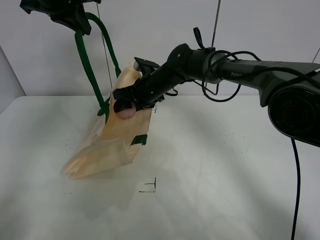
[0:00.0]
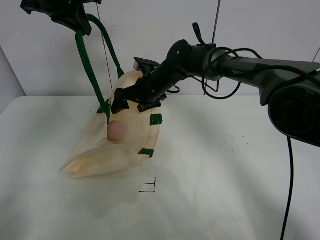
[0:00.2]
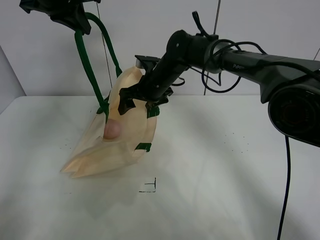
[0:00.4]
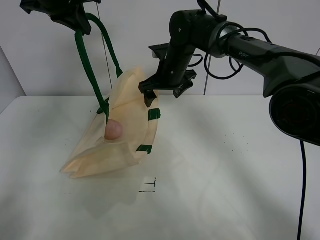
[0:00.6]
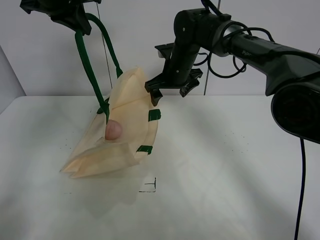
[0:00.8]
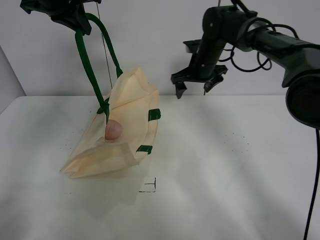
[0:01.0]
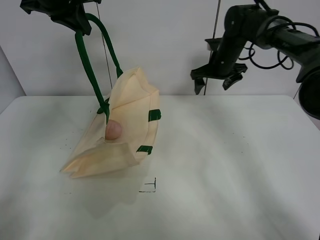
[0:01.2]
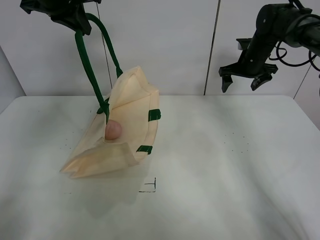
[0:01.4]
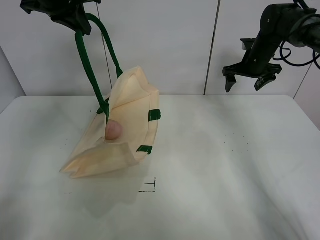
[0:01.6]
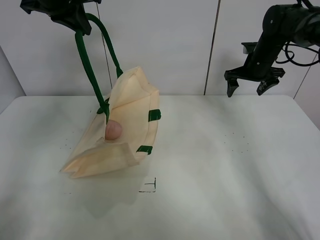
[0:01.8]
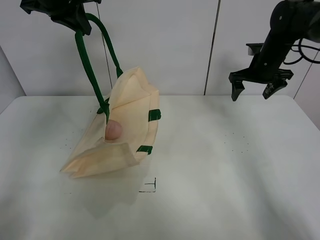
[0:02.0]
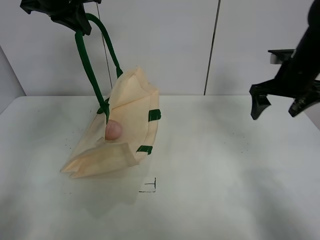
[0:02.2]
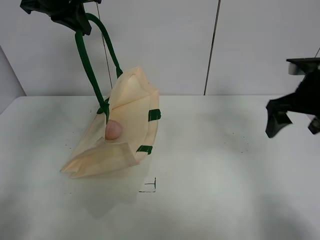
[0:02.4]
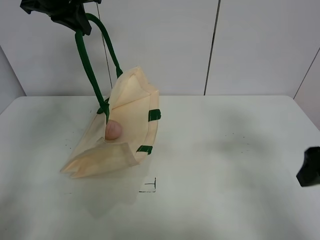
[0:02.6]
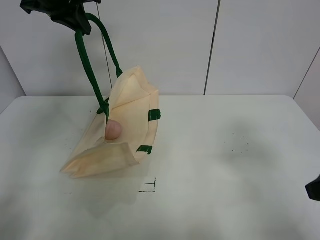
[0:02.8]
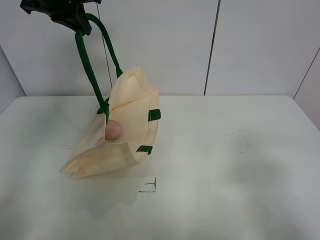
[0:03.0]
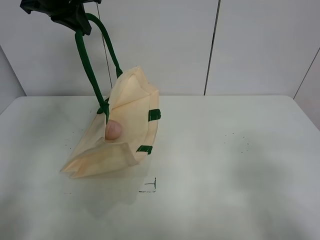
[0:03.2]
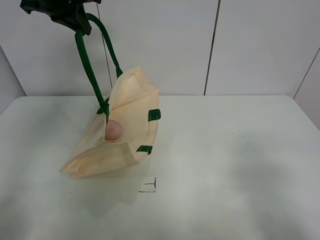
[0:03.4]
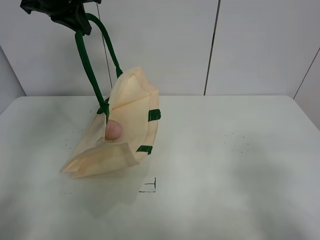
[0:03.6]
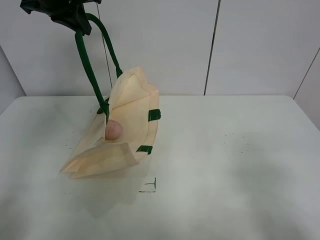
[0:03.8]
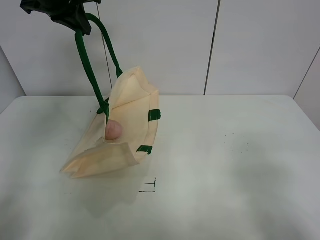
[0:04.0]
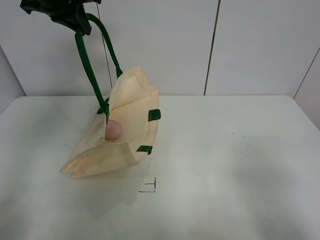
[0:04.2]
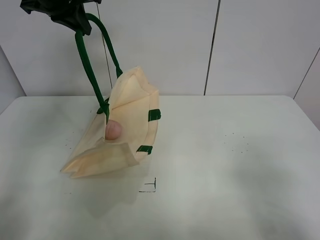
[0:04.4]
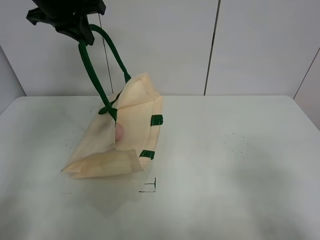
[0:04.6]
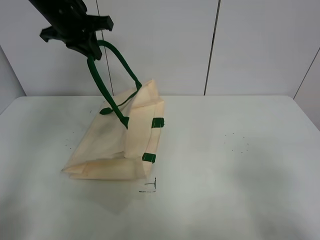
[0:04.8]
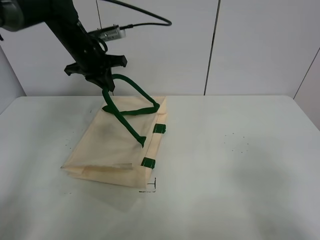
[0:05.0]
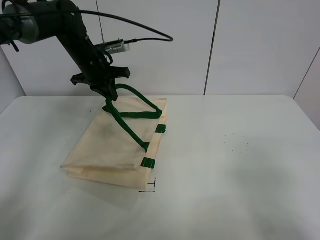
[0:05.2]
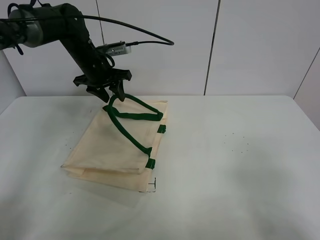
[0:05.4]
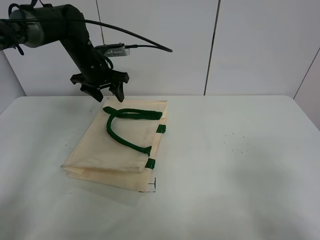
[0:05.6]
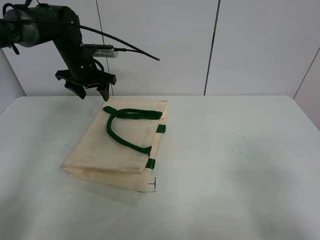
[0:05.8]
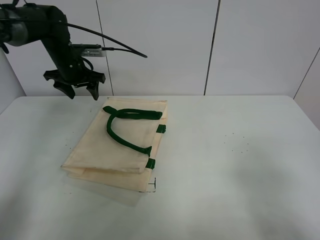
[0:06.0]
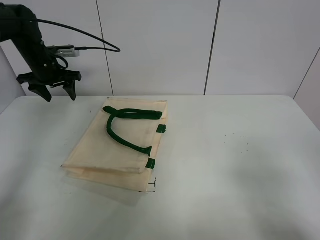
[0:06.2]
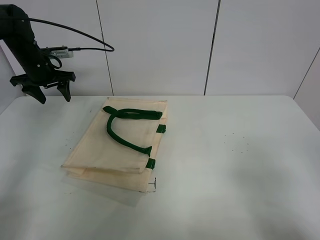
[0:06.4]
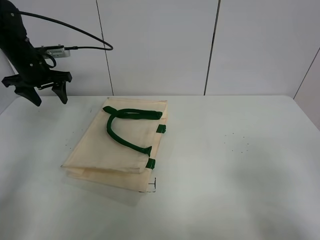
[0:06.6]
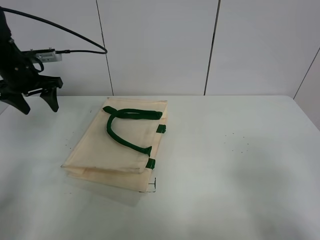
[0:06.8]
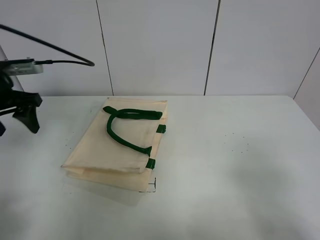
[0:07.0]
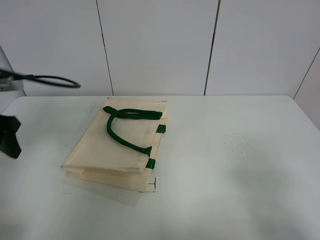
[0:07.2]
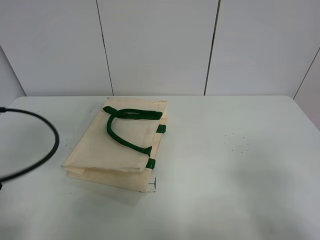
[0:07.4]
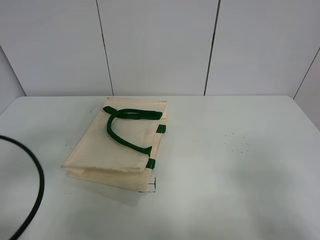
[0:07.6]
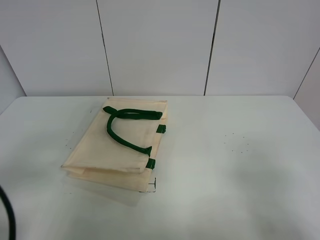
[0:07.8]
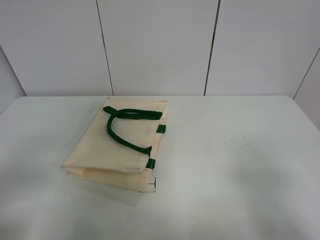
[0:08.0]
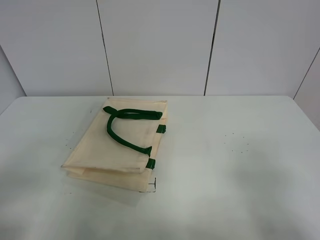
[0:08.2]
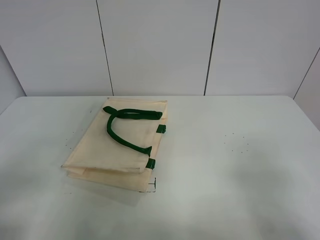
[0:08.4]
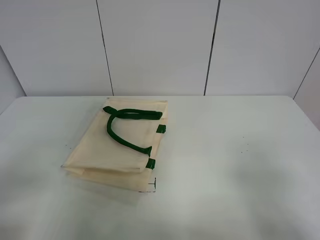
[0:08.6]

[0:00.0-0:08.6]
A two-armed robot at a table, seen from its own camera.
Task of the whole recording: open the white linen bag and put the peach in the bag.
Step, 0:00.8 to 0:05.6: Put down the handbag with left gripper.
0:00.0 to 0:01.4: The right gripper heads to the right, covering about 25 cm.
0:01.4 to 0:02.8: The right gripper is displaced backward by roughly 40 cm.
0:02.8 to 0:04.4: The right gripper heads backward, covering approximately 10 cm.
0:04.4 to 0:05.8: The left gripper is displaced downward and forward by approximately 20 cm, and opens its fingers.
0:05.8 to 0:07.2: The left gripper shifts about 25 cm backward.
0:07.2 to 0:08.6: The left gripper heads backward, covering some 20 cm.

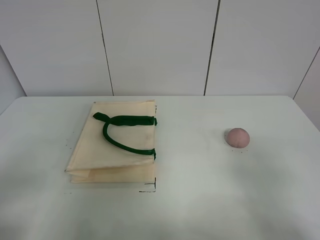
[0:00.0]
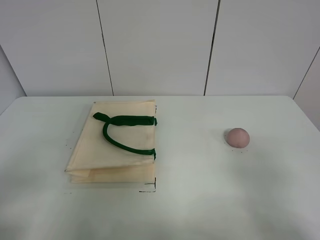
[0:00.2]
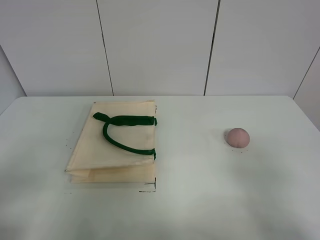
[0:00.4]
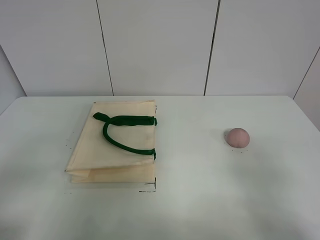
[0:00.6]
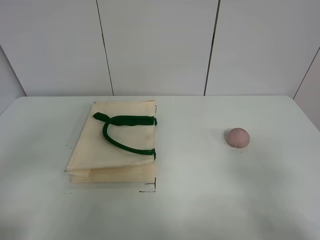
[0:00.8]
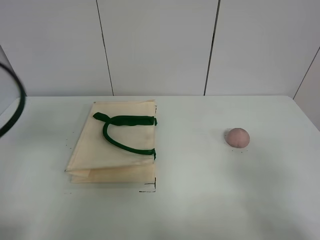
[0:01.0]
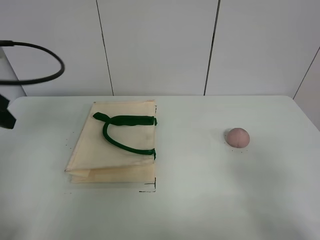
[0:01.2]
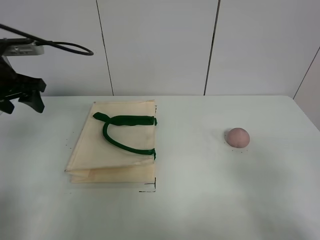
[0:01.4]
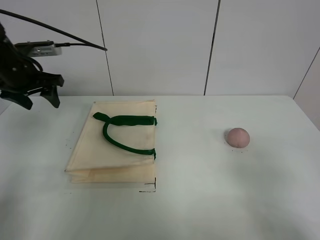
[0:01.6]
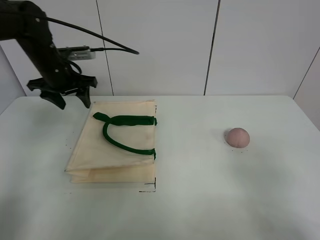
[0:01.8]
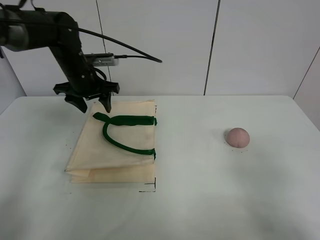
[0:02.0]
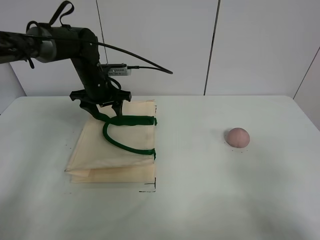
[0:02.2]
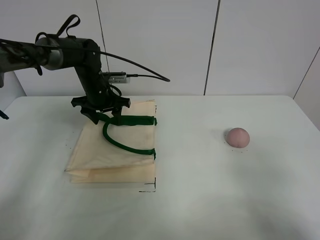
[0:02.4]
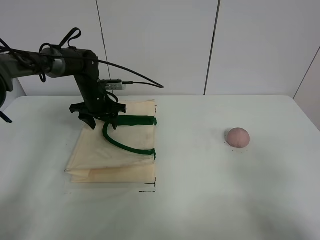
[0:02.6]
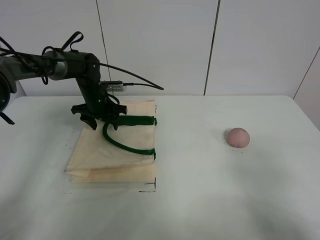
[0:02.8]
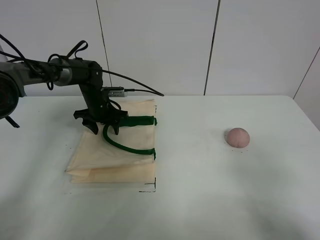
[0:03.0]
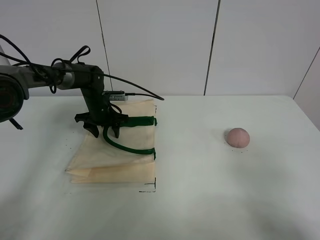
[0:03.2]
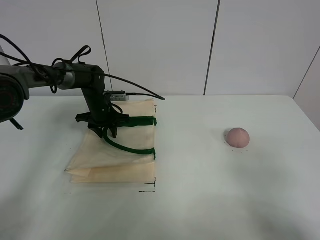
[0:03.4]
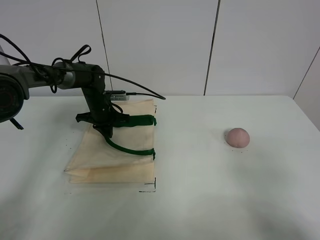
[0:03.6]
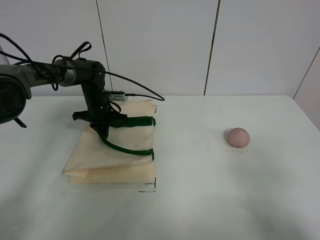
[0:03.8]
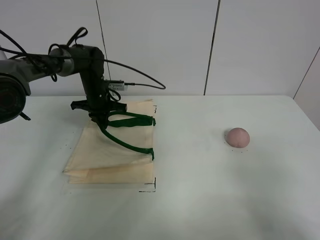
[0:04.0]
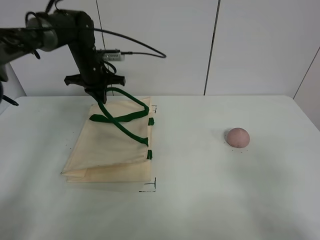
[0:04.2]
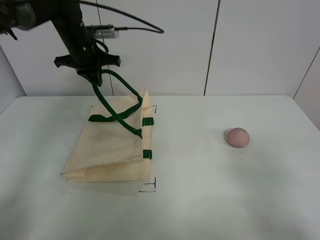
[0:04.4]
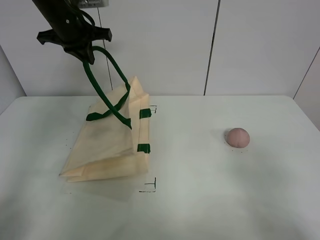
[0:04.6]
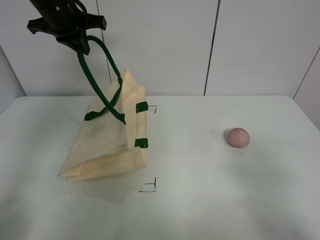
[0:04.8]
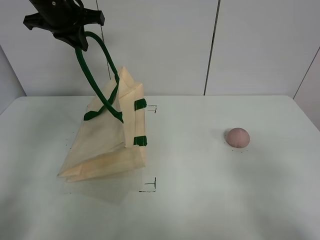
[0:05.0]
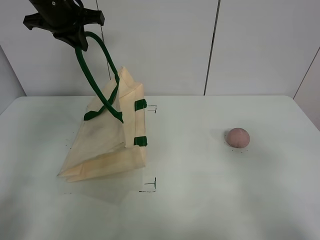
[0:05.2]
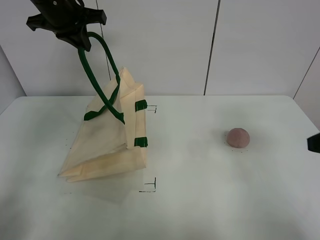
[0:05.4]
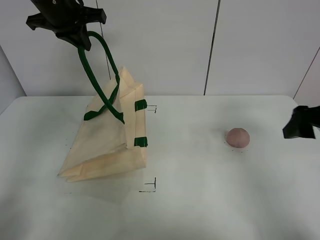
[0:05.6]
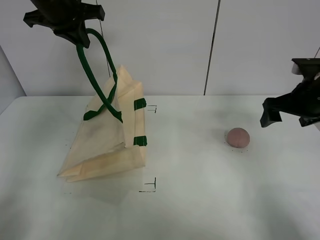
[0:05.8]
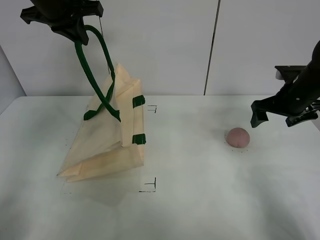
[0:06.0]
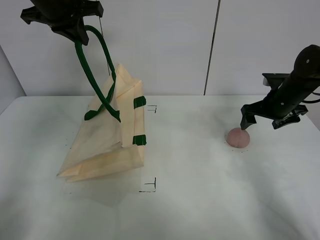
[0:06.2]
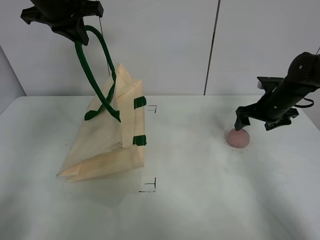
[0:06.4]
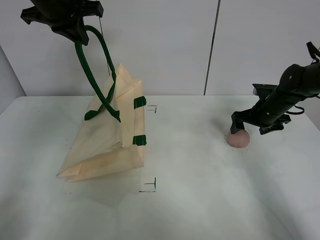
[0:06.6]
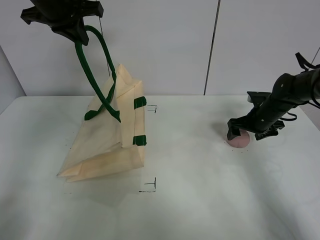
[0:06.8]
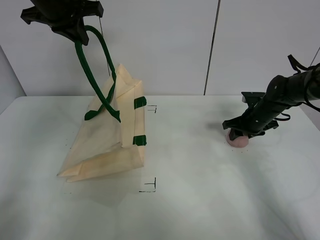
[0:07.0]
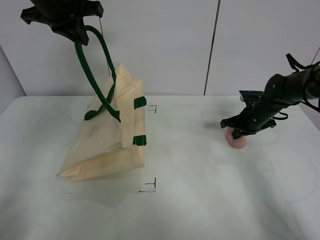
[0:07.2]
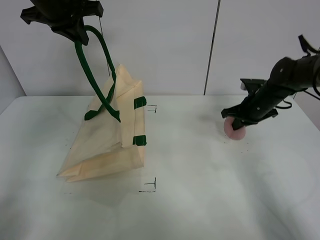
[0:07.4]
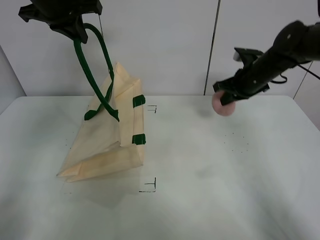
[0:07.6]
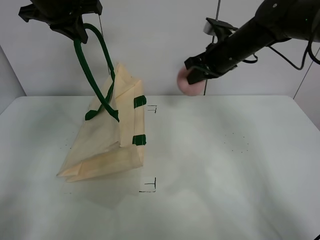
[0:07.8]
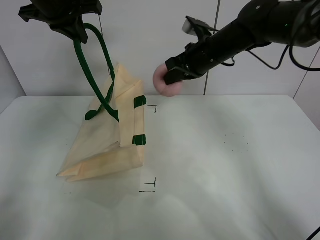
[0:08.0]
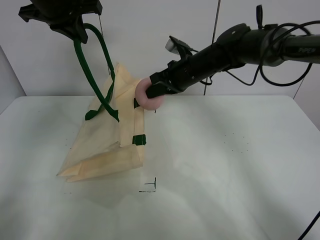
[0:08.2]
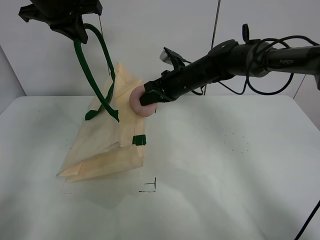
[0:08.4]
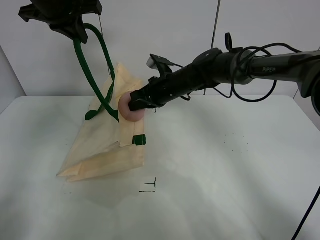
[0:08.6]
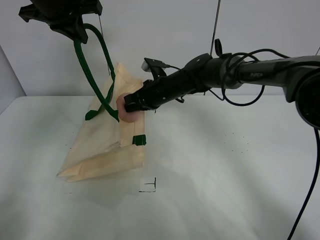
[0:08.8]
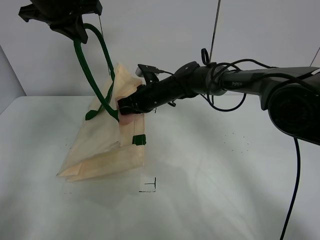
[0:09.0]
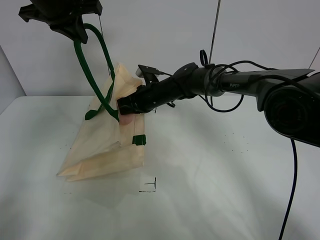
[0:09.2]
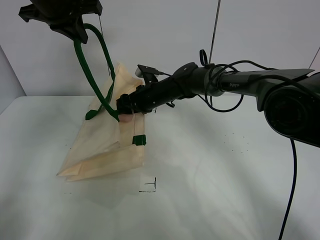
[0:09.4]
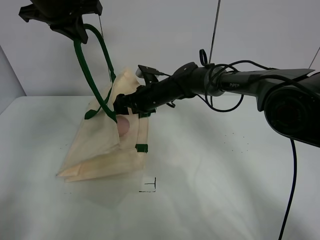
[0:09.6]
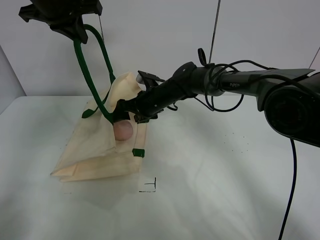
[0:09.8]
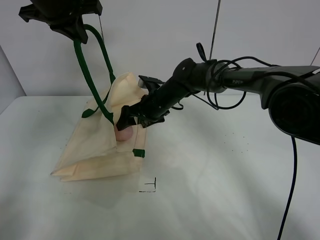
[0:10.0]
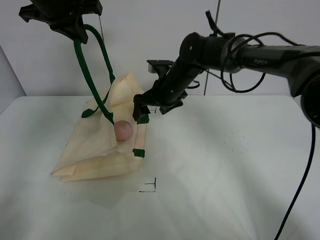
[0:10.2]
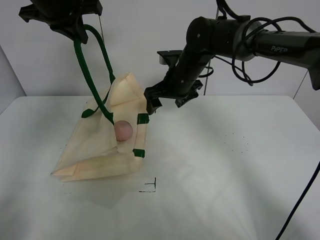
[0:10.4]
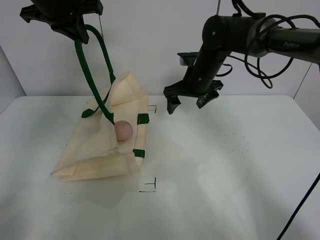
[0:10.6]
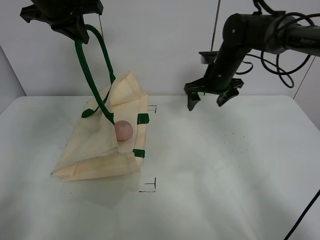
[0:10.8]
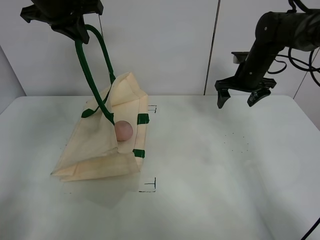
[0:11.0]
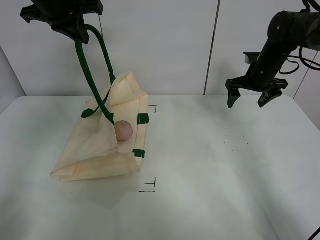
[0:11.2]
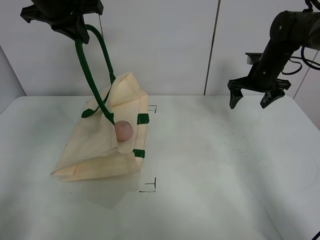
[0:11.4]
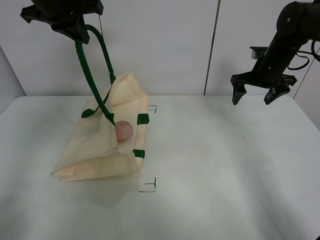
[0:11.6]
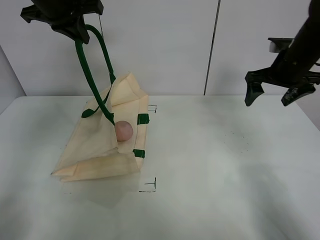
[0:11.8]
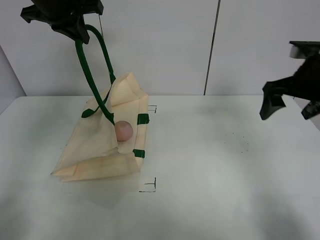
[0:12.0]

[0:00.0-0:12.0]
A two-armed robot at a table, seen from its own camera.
Task of the whole recording: open the white linen bag and put the peach in the bag.
Step, 0:00.0 to 0:05.2: Lift the handbag with left gripper.
Step, 0:05.4 to 0:07.2: Grasp the peach with right gripper.
Step, 0:07.4 to 0:09.6: Place the peach in the handbag with right gripper.
0:01.6 to 0:03.0: The left gripper shifts about 25 cm downward, to the right and forward.
0:03.0 to 0:04.4: The left gripper heads upward, covering roughly 15 cm, and closes up.
0:04.4 to 0:06.0: The left gripper travels upward and backward by roughly 15 cm. Meanwhile the right gripper heads forward, covering roughly 35 cm.
0:06.0 to 0:07.6: The right gripper heads forward and to the left, covering about 10 cm, and closes.
0:07.6 to 0:09.0: The right gripper heads to the left, covering about 25 cm.
0:09.0 to 0:10.4: The right gripper travels upward by approximately 5 cm, and opens.
0:10.4 to 0:12.0: The right gripper shifts about 25 cm to the right.

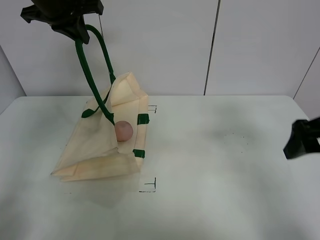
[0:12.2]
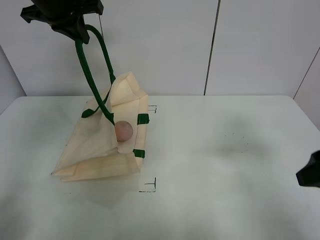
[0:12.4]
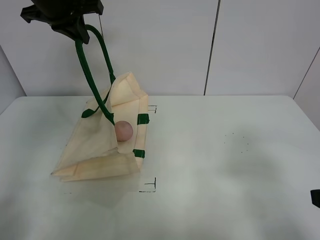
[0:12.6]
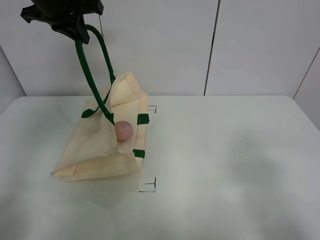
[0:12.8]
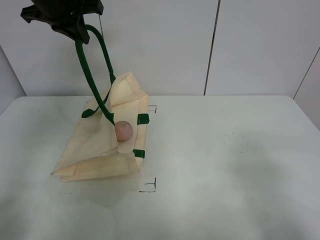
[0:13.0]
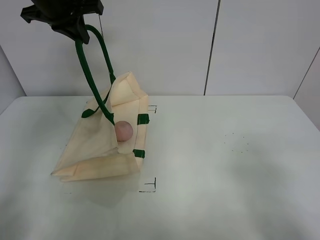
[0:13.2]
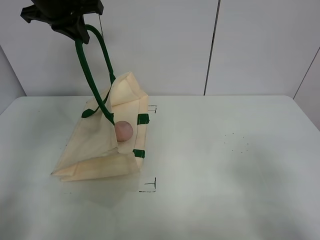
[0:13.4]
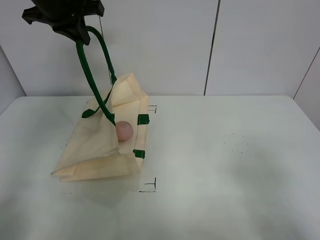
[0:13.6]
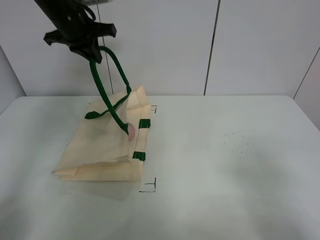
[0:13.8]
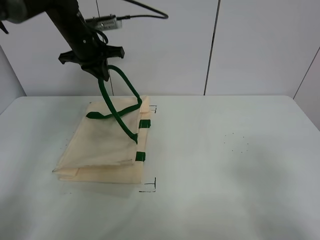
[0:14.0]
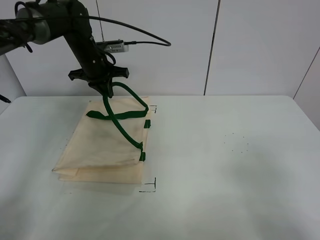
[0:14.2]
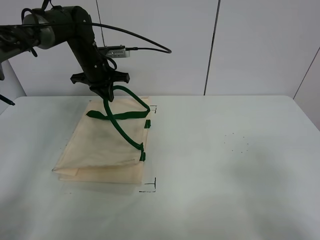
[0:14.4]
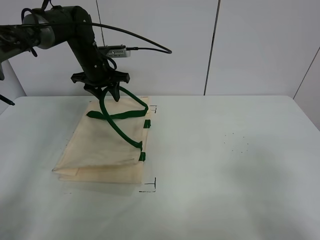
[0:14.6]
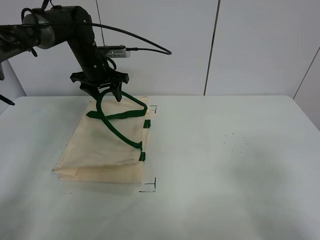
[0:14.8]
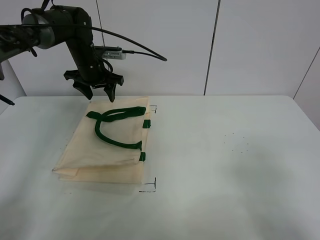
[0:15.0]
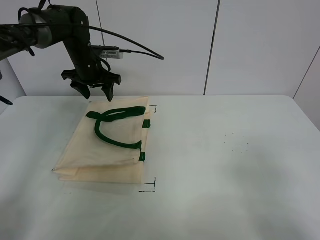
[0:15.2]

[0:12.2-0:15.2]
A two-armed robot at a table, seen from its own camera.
Task of the whole recording: open the white linen bag and put the peach in the bag.
Step, 0:12.2 to 0:15.2: Put down the handbag with left gripper.
0:12.2 to 0:13.8: The right gripper heads backward, covering approximately 25 cm.
0:13.8 to 0:15.2: The left gripper moves downward and forward, roughly 15 cm, and opens up.
